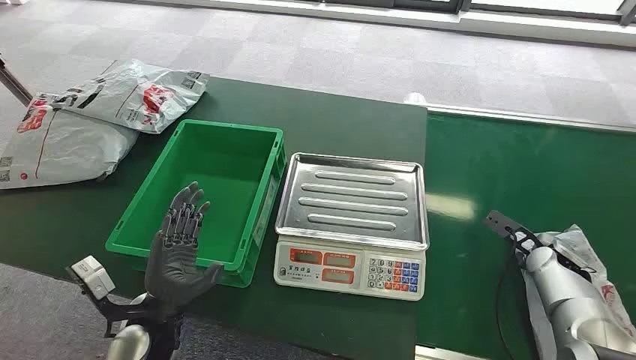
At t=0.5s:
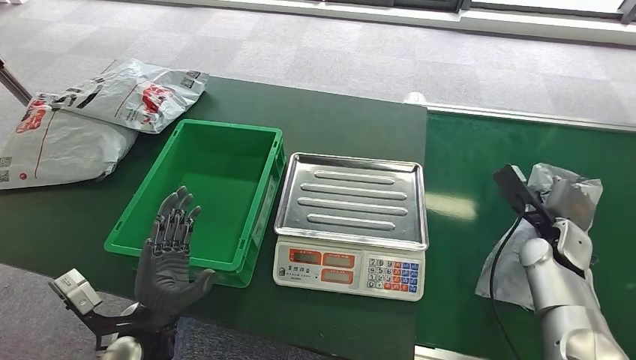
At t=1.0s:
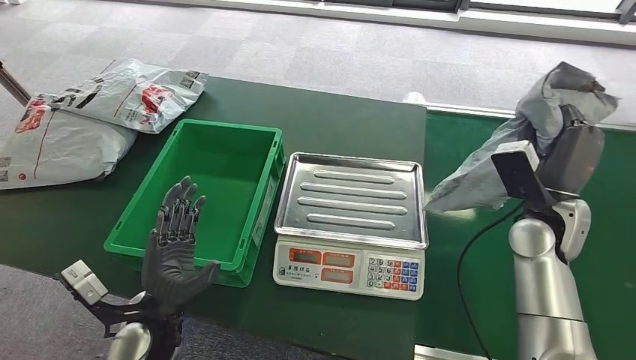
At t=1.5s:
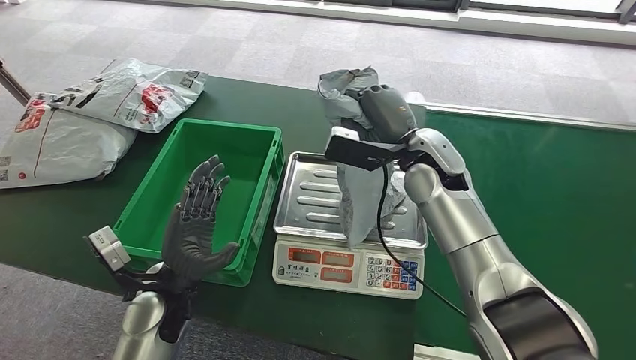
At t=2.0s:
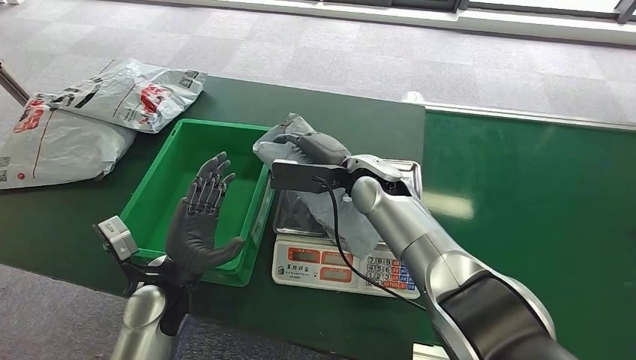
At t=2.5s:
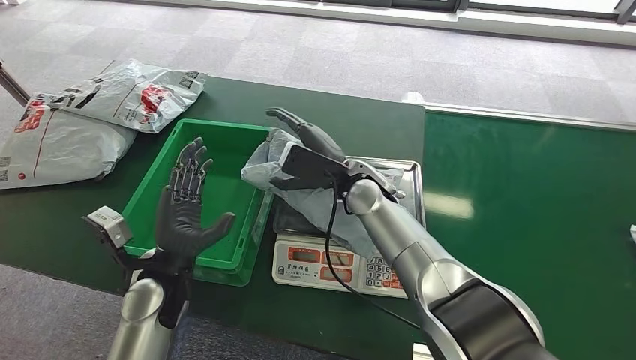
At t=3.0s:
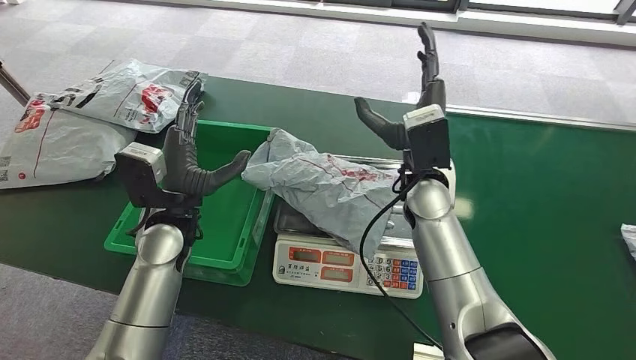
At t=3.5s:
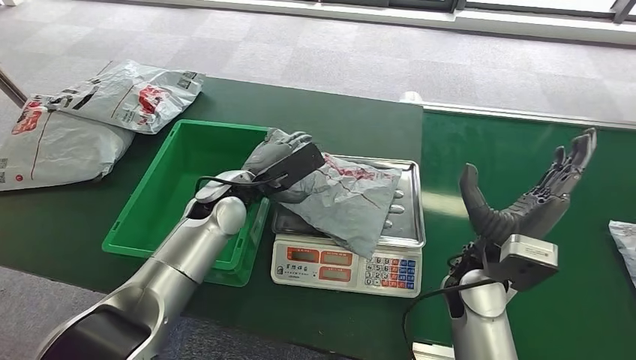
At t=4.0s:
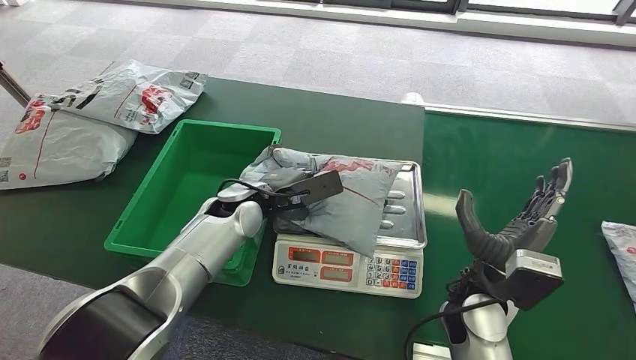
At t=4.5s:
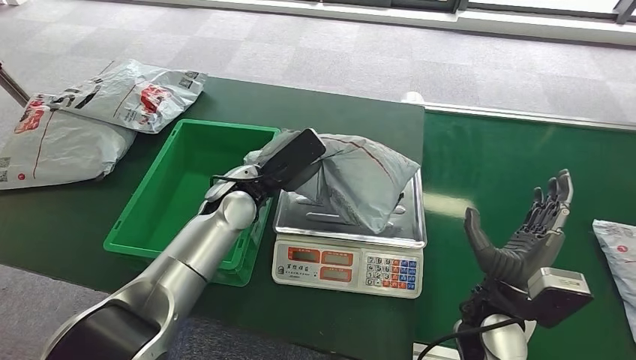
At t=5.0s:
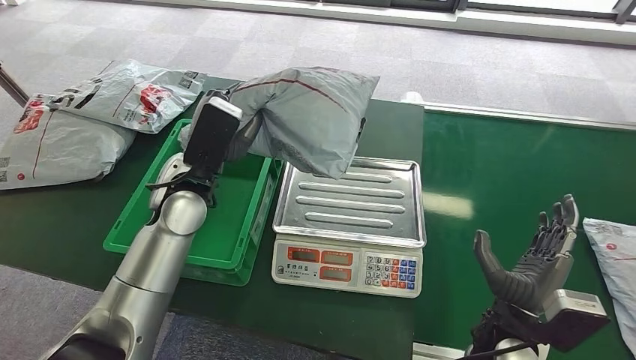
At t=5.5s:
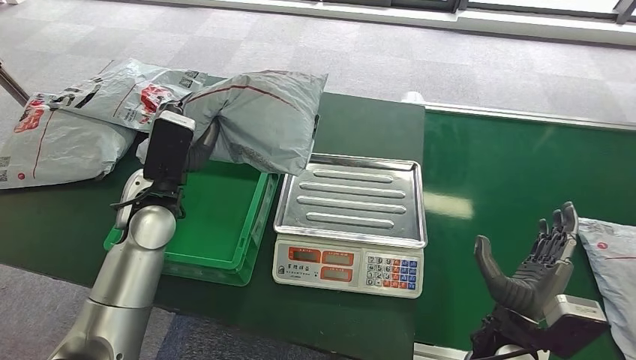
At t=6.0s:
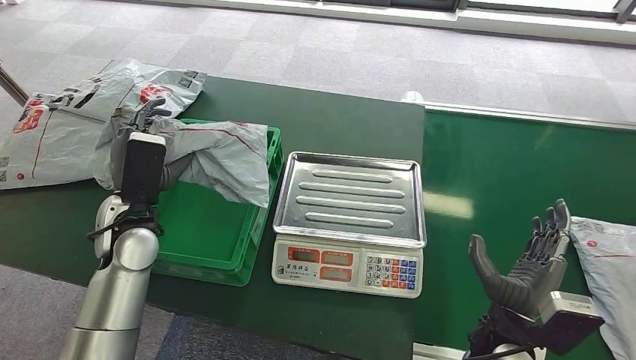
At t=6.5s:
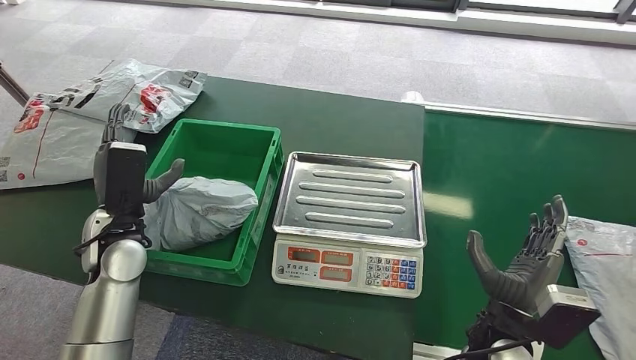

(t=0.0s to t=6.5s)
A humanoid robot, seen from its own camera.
Task of the whole recording: Weigh the package on the weighing device and place it in the left basket.
Step, t=0.0s - t=0.5s: Pick up the package from the conveyor belt.
Step, t=1.0s - t=3.0s: Place the package onto the inbound machine.
Step, t=4.0s - t=5.0s: Pick up the package from the inbound machine.
Step, t=5.5s - t=6.5s: Place the package into the parcel locker.
